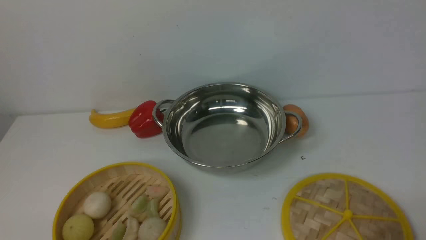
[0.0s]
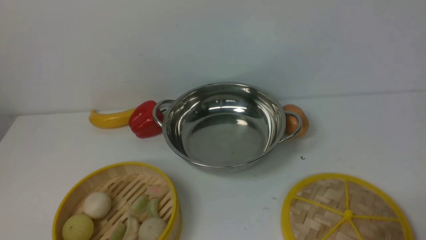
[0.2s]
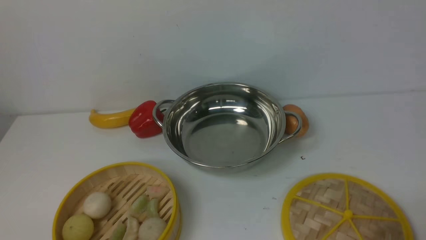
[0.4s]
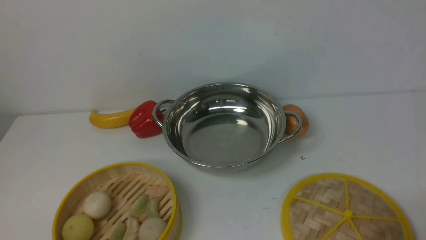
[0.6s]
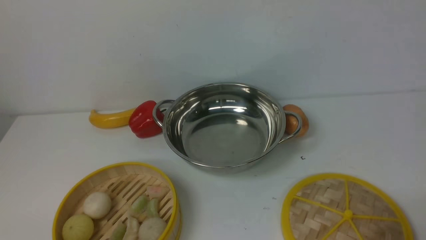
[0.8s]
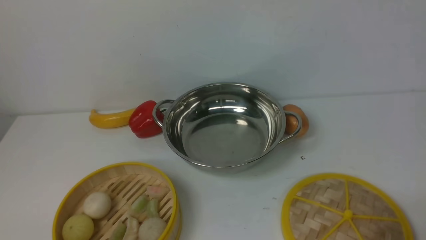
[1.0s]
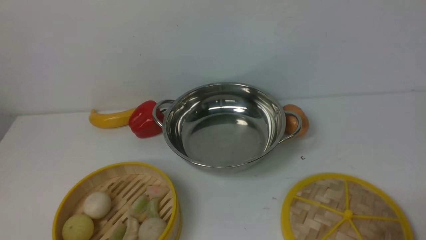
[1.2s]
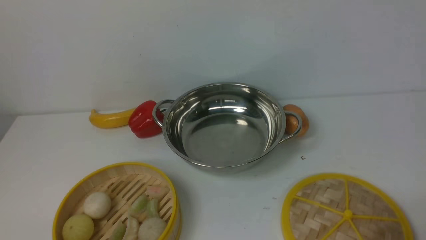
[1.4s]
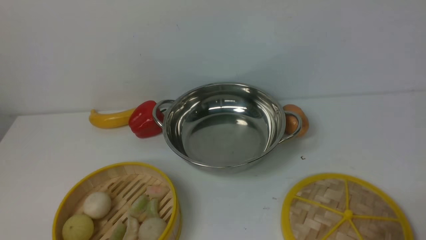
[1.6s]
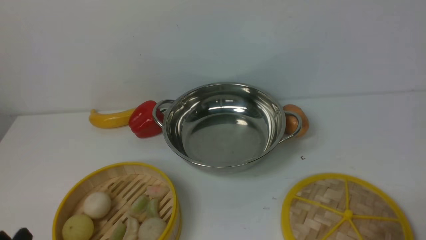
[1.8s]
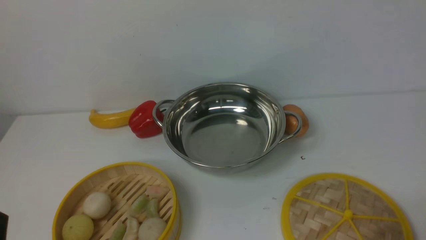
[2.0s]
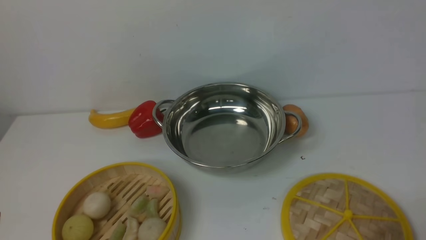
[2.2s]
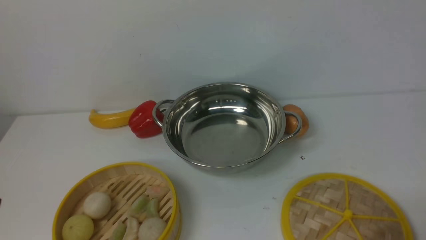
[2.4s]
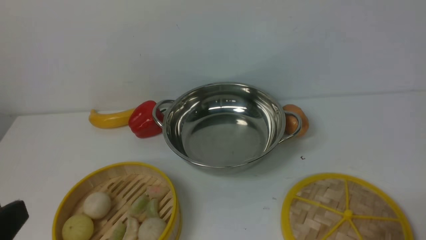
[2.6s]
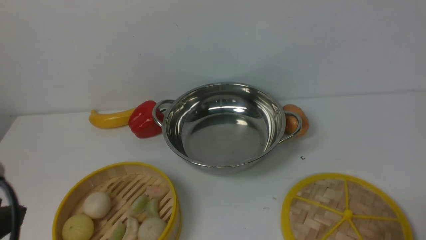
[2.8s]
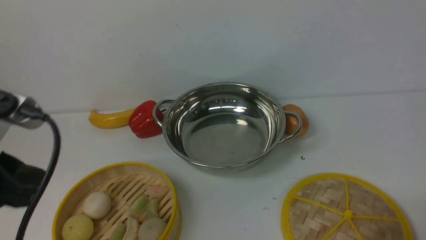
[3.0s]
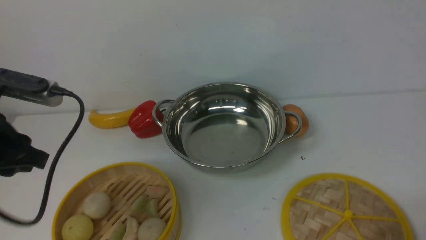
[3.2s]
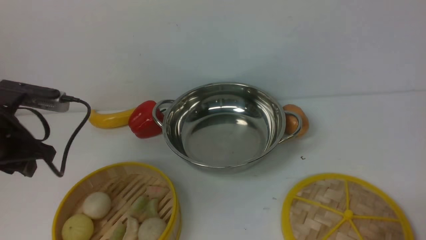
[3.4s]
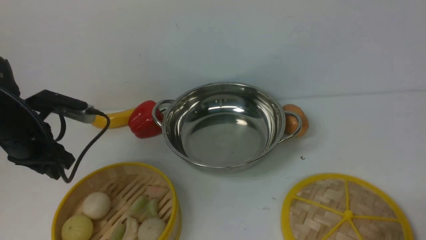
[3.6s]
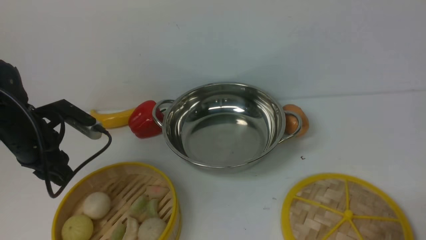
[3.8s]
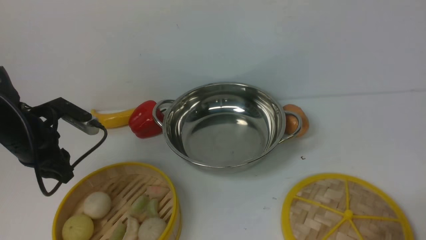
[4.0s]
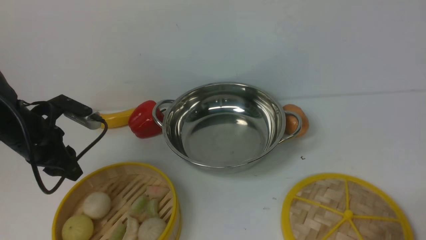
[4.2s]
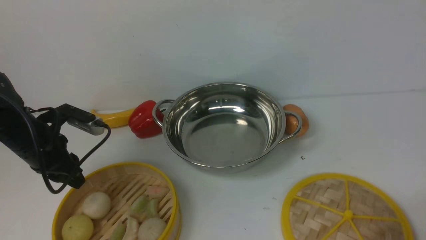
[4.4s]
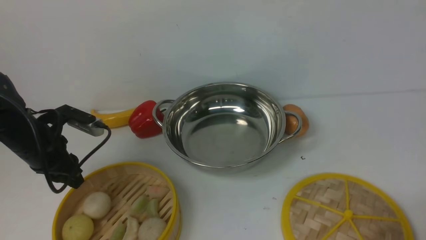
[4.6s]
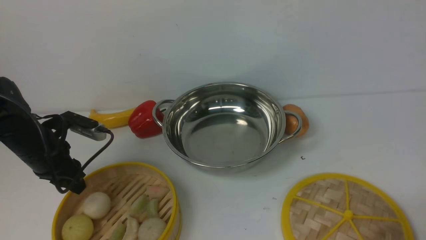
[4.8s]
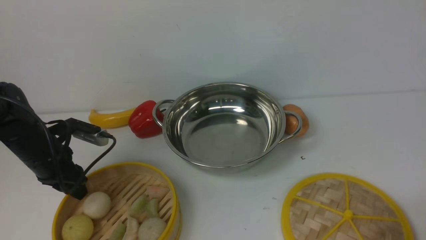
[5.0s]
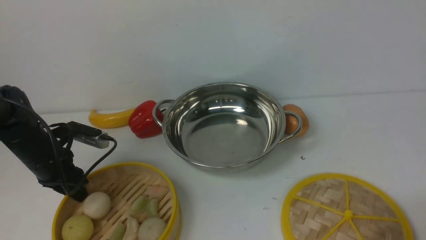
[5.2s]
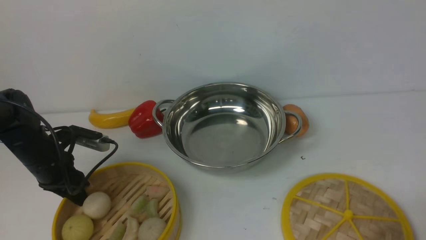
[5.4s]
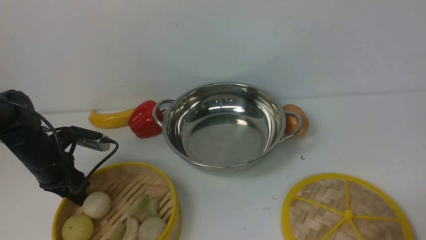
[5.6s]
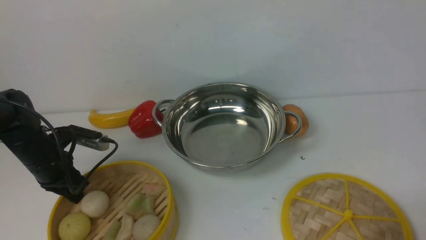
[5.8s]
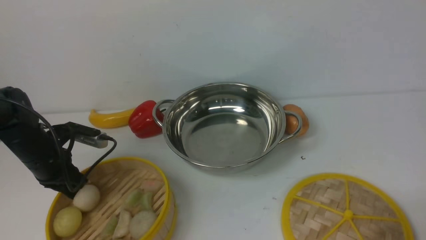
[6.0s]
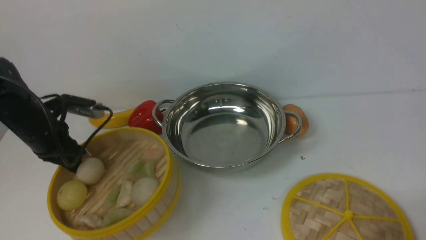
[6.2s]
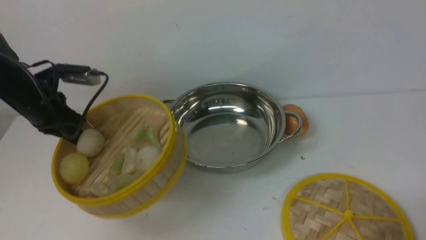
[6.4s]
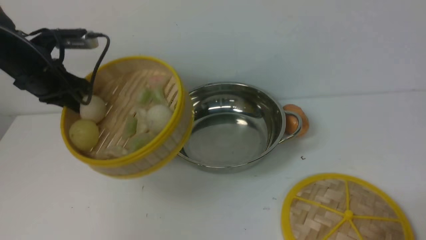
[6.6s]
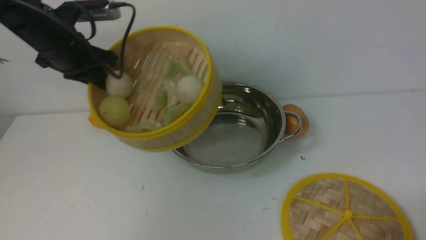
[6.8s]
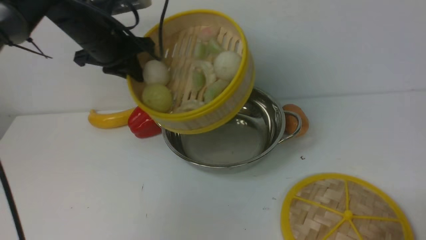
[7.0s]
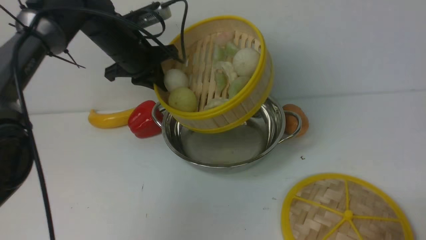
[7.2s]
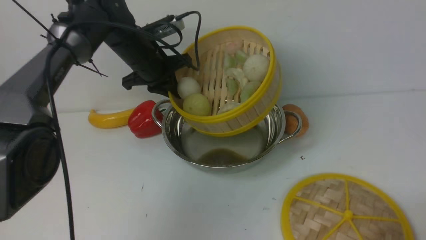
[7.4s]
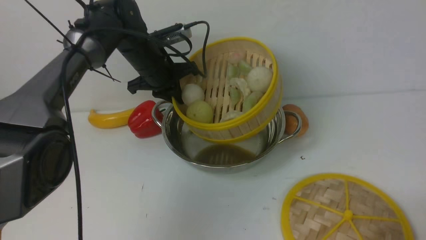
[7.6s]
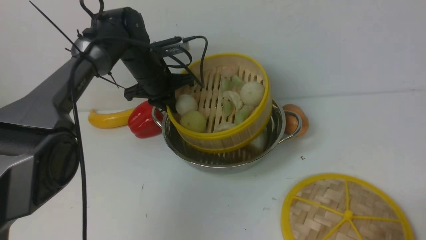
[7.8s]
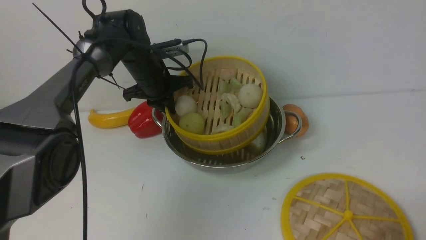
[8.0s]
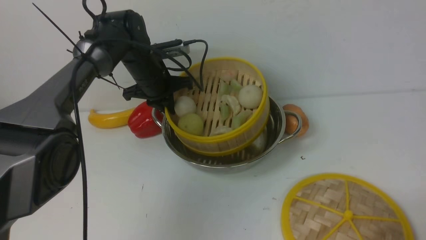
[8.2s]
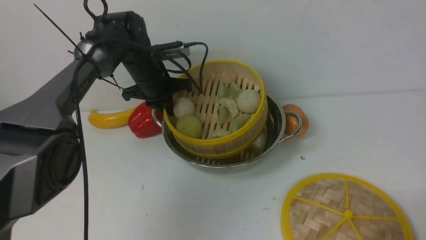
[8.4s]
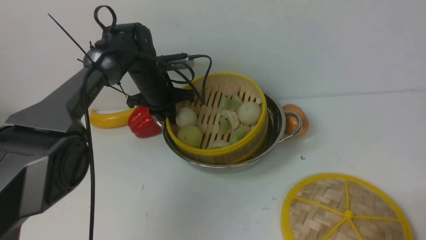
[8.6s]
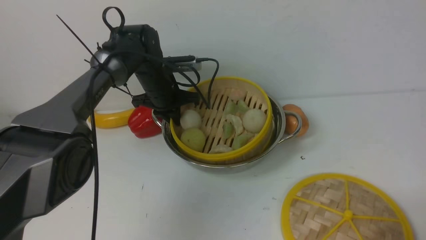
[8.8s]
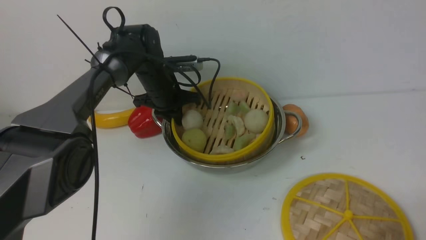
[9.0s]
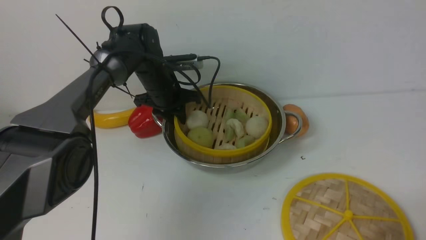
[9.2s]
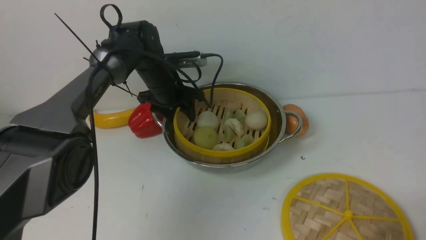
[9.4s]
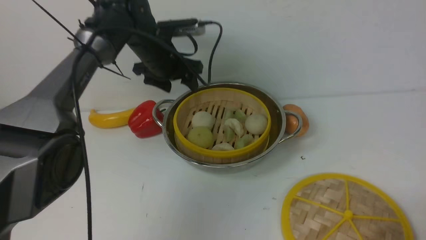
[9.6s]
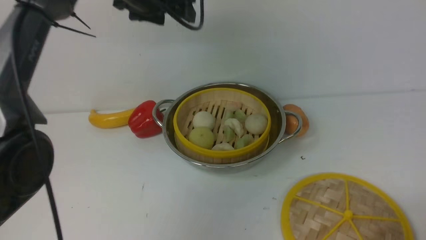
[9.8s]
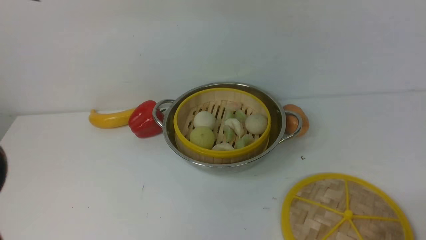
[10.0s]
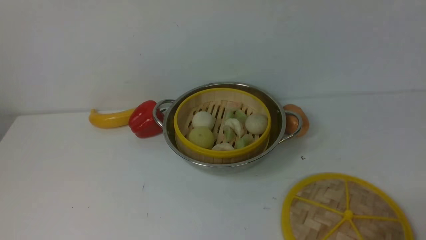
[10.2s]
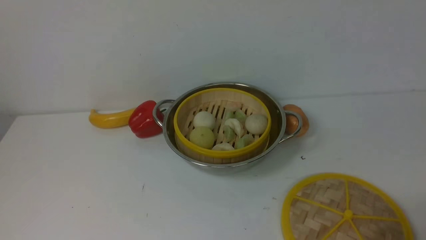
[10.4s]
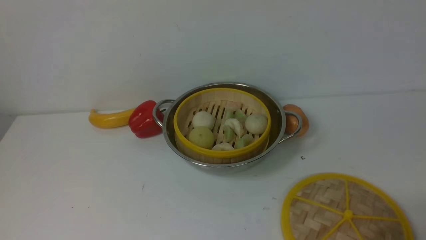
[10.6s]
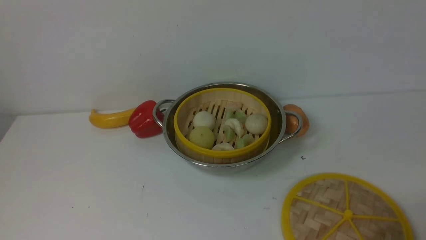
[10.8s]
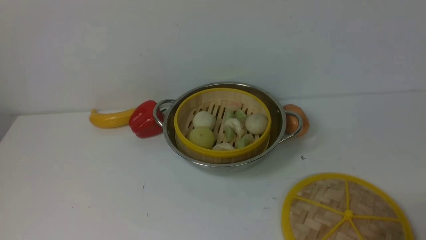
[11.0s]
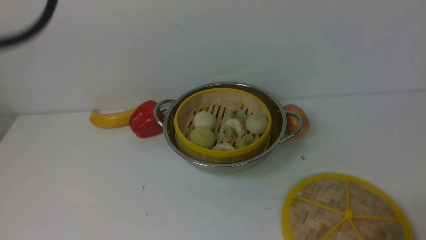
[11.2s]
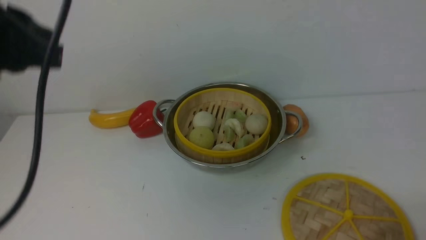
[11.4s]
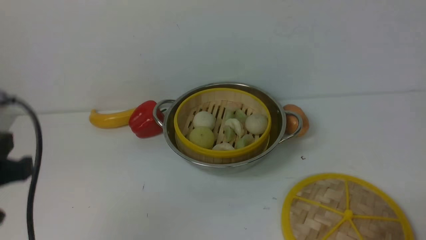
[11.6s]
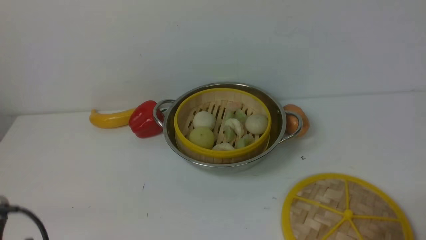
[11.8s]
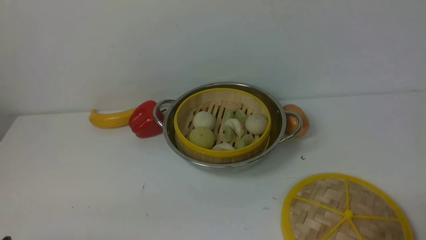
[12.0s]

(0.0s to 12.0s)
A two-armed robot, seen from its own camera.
Task of the whole recording: place the steamer in the pot on the white table, and put the lid on the steamer.
Step, 0.0s - 6.4s: use the left arm to lift the steamer closest to it.
Step, 6.6s - 9.6s: use the left arm to put the steamer into the iron steamer pot in the middle.
1.6s - 3.0s: The left gripper travels upward by roughly 20 cm.
3.0s - 4.4s: The left gripper travels forward and downward by roughly 25 cm.
4.4s - 6.0s: The left gripper heads downward, covering approximately 5 cm, and closes up.
6.0s - 7.6s: The left gripper shifts approximately 25 cm to the right, forward and upward.
7.6s - 9.0s: The left gripper heads downward, covering roughly 5 cm.
9.0s - 10.4s: The left gripper shifts about 40 cm upward and backward, and opens.

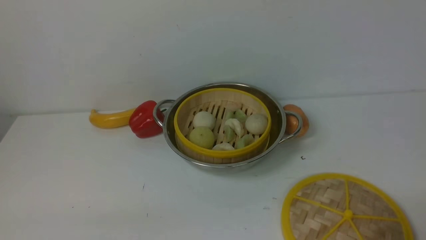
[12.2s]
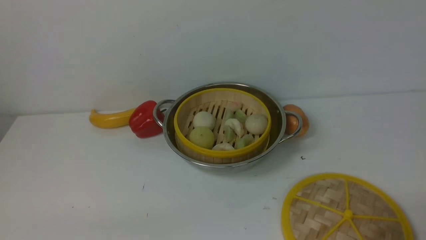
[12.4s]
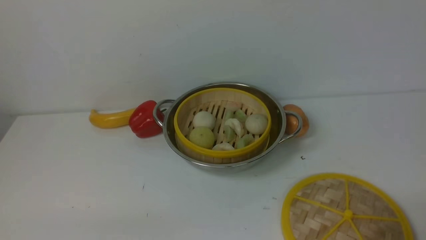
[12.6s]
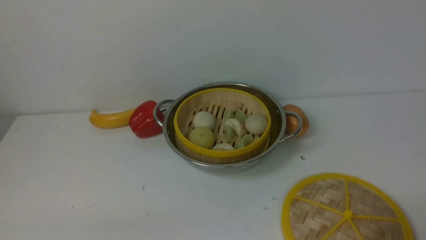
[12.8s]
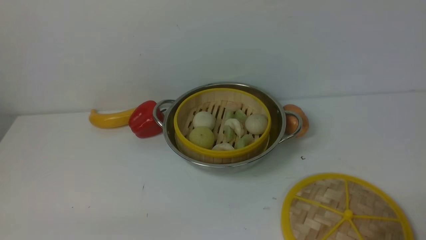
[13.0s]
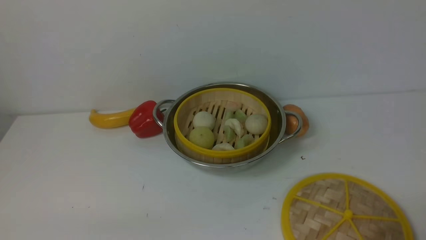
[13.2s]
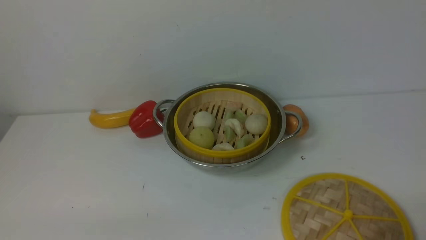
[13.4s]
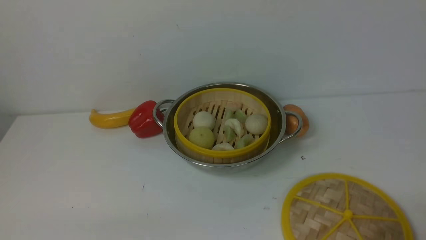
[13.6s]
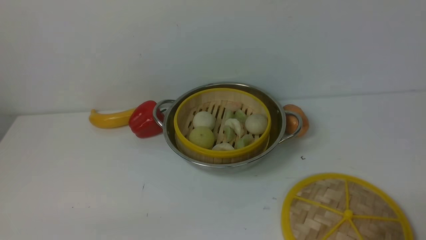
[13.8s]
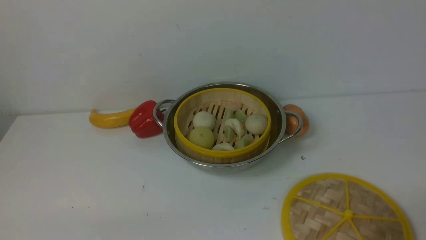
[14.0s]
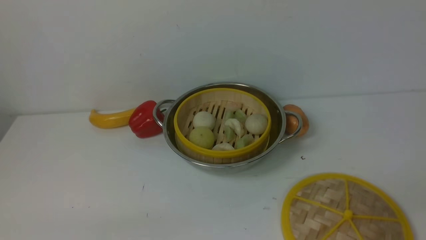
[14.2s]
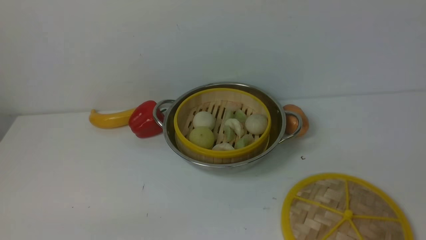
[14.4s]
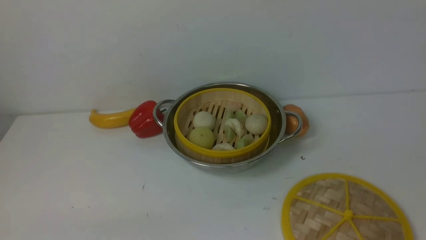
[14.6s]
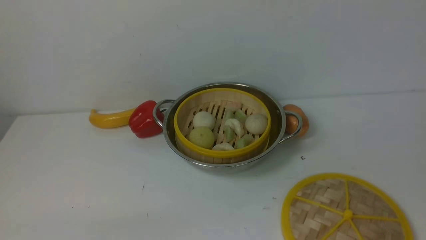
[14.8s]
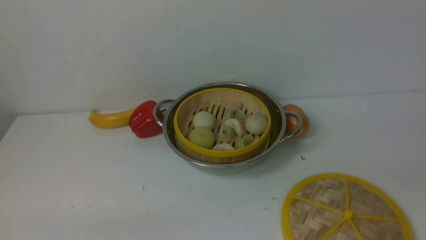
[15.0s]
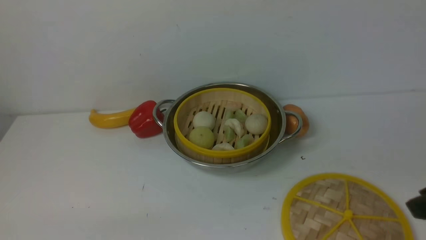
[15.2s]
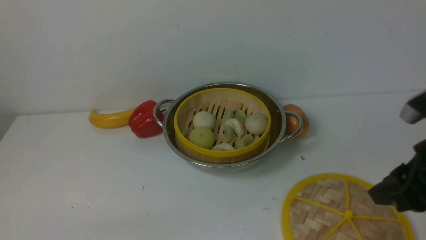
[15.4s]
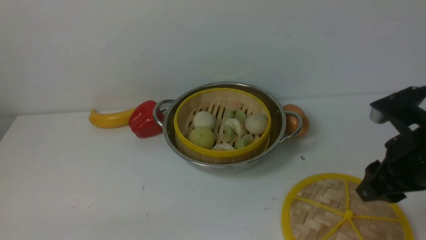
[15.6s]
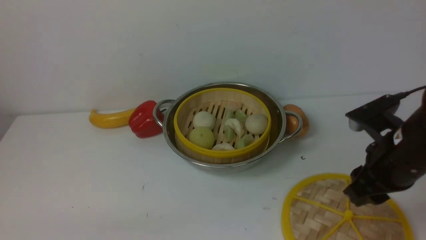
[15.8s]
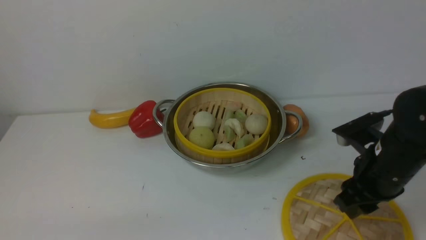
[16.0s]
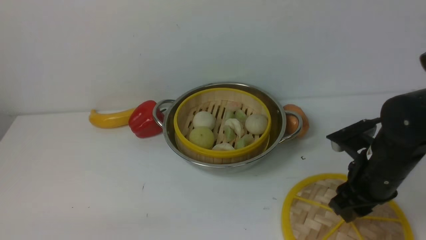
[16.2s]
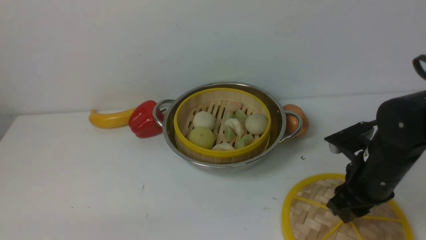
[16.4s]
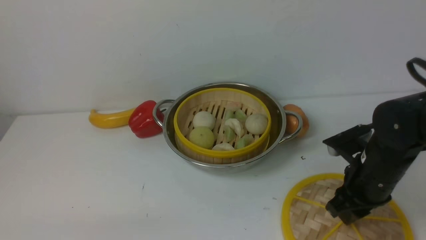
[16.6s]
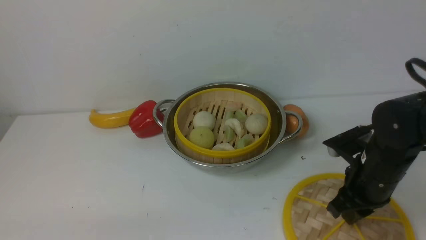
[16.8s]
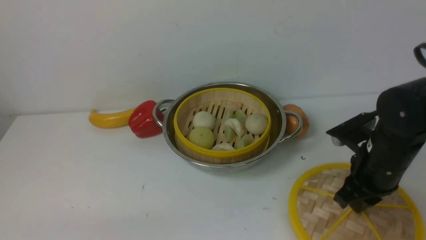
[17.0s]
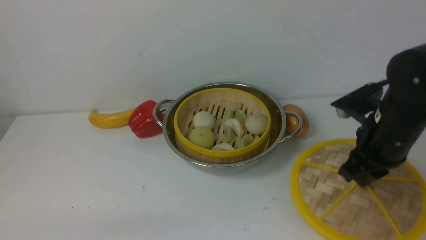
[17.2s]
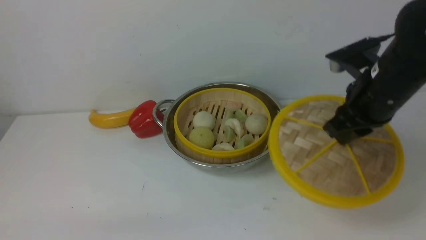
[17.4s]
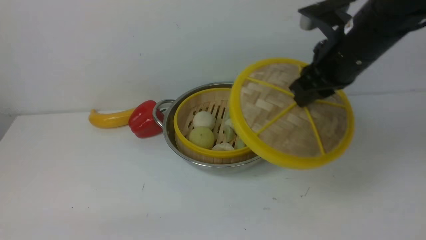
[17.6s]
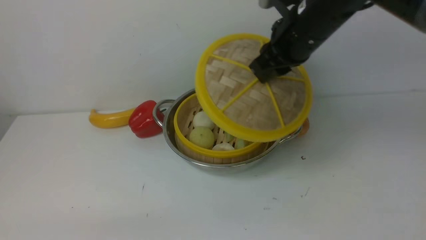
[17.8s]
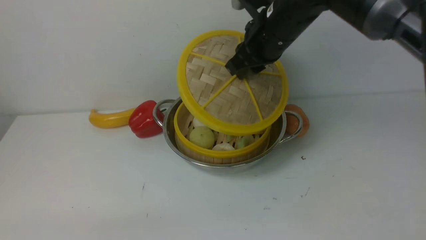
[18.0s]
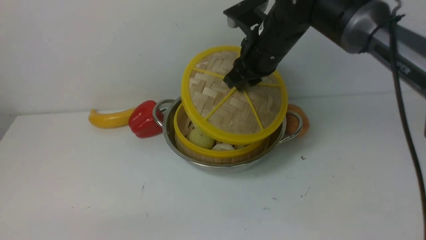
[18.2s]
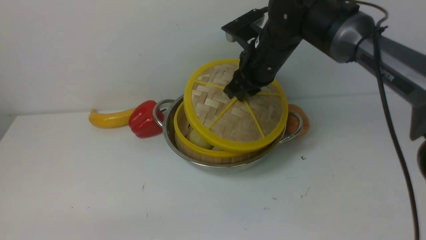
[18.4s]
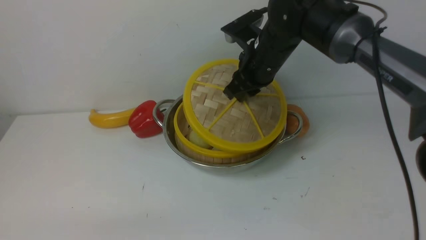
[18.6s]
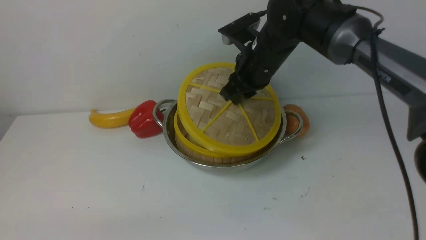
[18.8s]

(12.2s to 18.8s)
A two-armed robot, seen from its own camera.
Task of the whole recording: place the steamer in the pot on the white table, and put the lid on the steamer.
Step, 12.2s - 17.2s: use the right arm to lift the lid of the steamer.
13.8s - 15.4s: The right gripper goes approximately 15 cm upward and forward.
15.4s - 17.2s: The right gripper goes about 15 cm forward, downward and to the left, and closes its fingers.
17.2s - 18.8s: The right gripper moves forward and to the left, approximately 20 cm.
